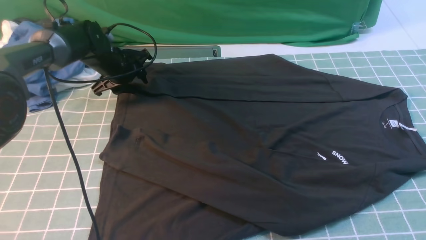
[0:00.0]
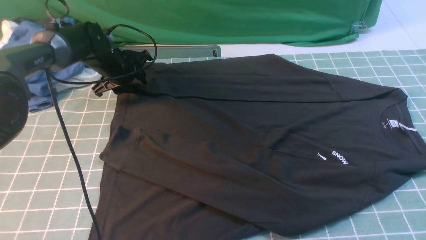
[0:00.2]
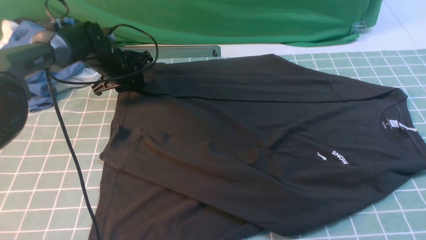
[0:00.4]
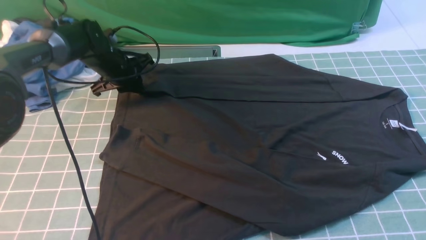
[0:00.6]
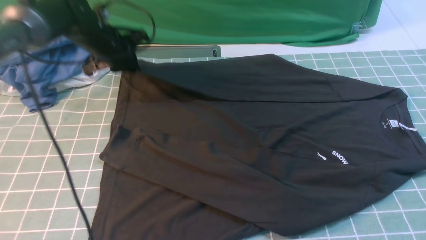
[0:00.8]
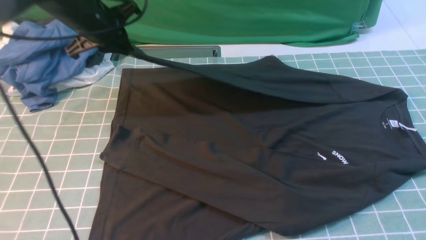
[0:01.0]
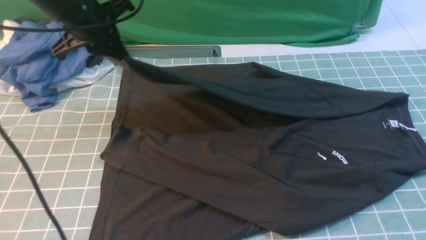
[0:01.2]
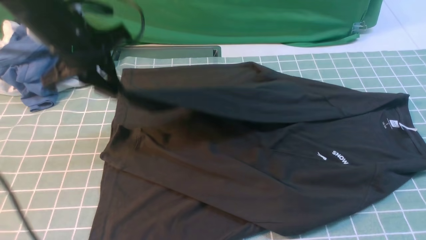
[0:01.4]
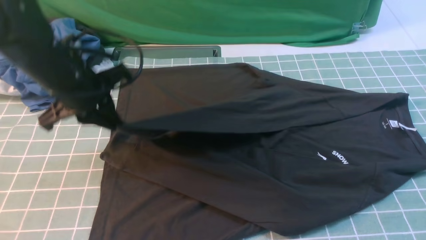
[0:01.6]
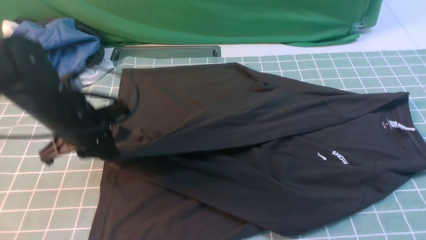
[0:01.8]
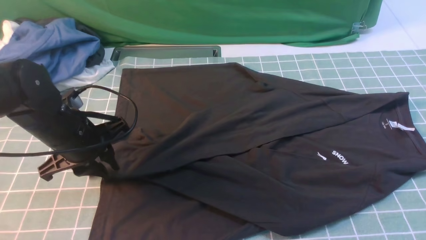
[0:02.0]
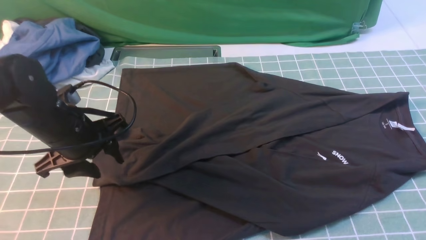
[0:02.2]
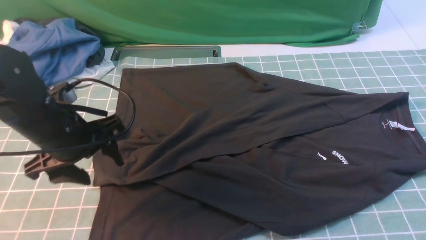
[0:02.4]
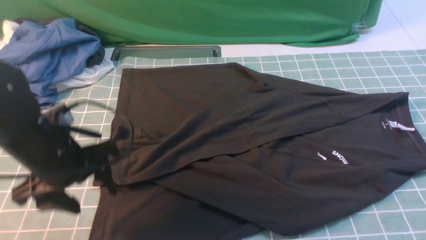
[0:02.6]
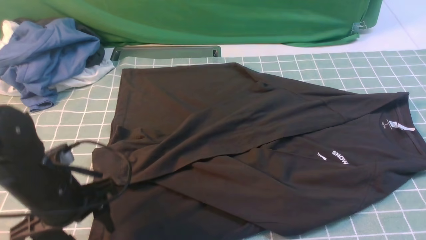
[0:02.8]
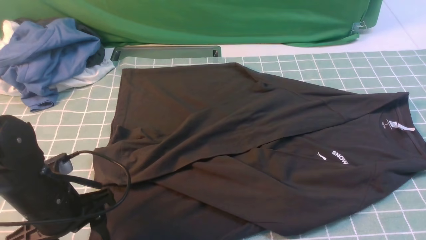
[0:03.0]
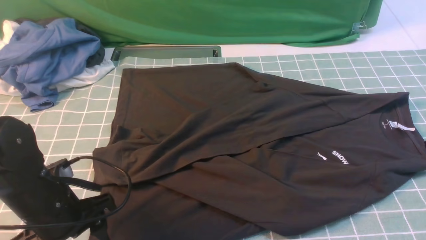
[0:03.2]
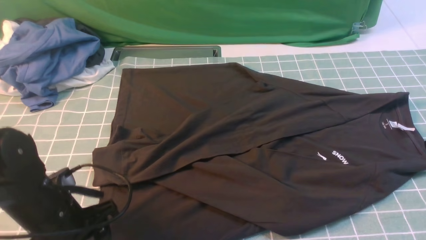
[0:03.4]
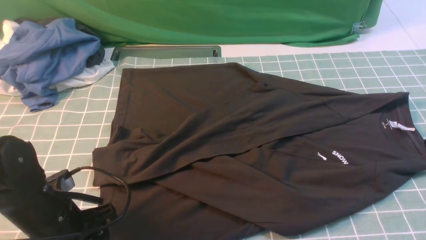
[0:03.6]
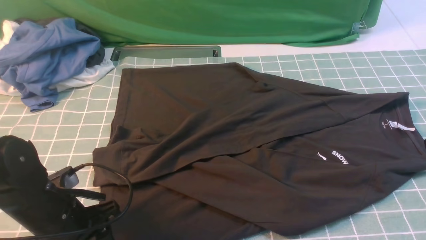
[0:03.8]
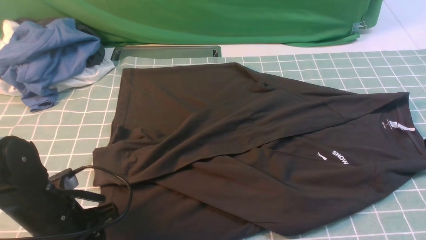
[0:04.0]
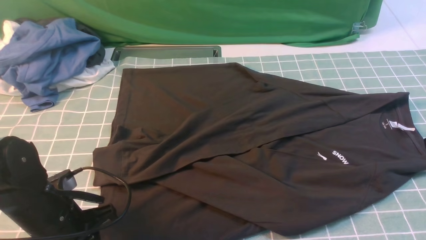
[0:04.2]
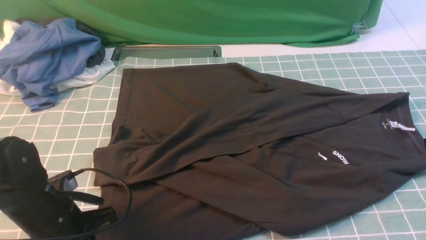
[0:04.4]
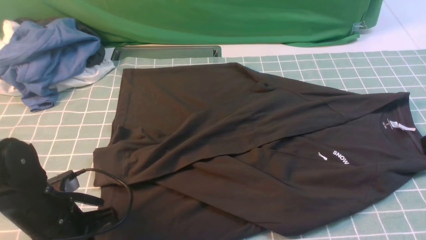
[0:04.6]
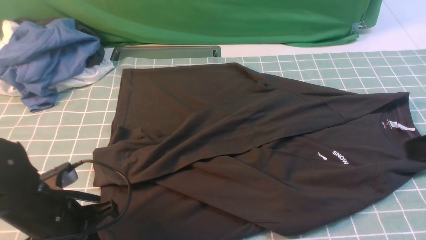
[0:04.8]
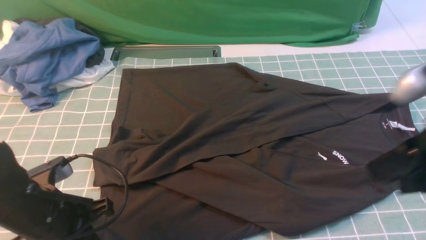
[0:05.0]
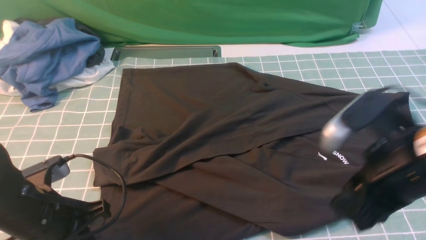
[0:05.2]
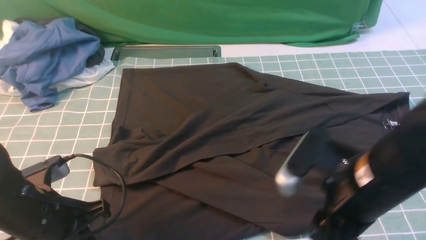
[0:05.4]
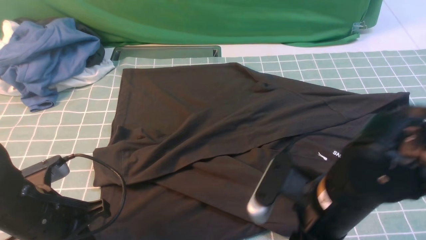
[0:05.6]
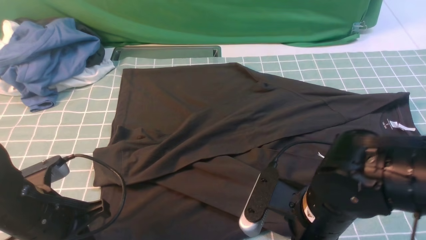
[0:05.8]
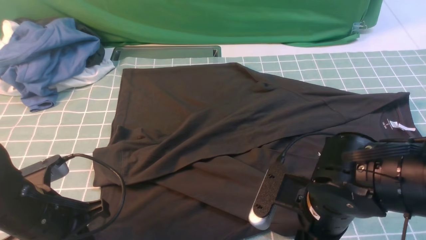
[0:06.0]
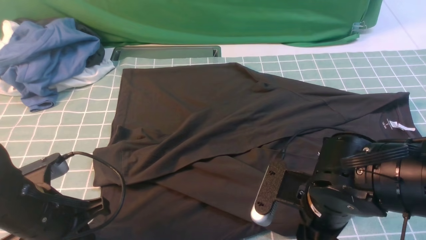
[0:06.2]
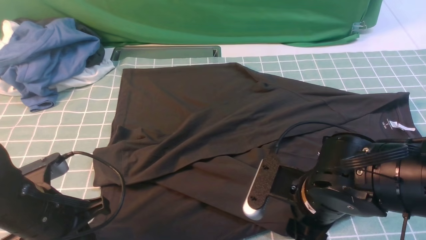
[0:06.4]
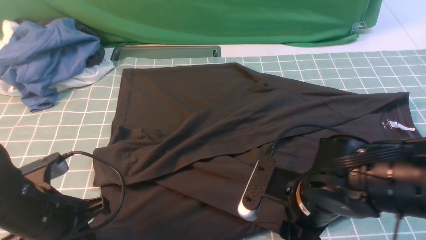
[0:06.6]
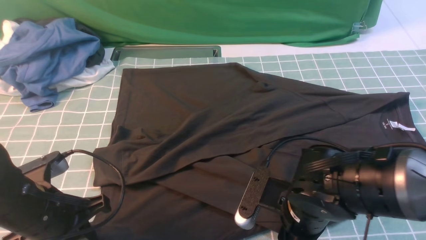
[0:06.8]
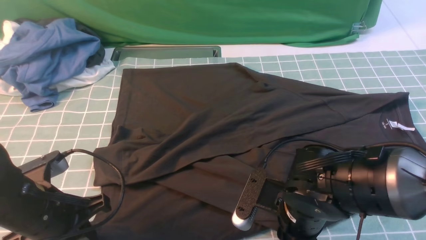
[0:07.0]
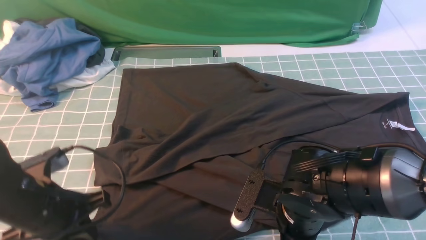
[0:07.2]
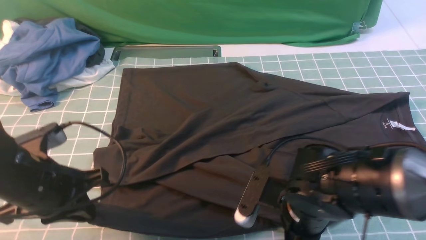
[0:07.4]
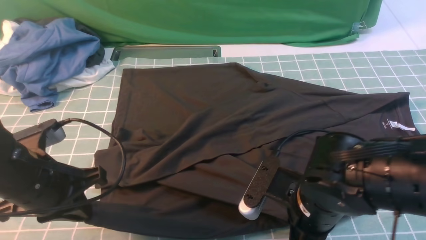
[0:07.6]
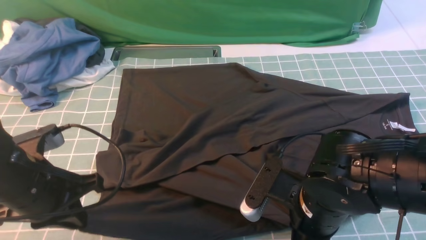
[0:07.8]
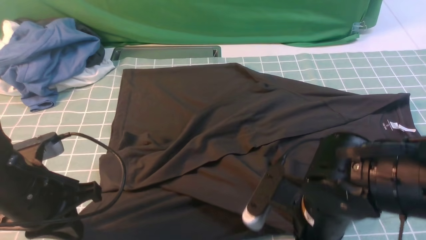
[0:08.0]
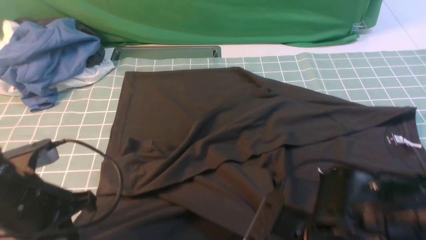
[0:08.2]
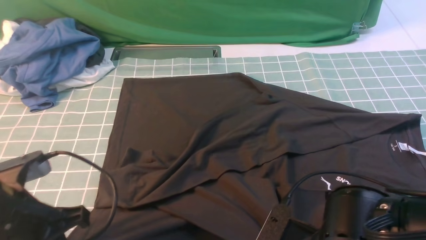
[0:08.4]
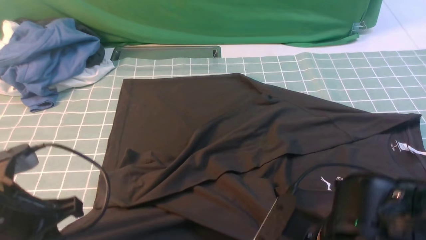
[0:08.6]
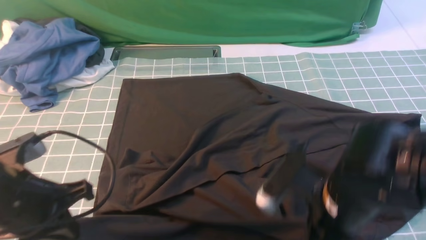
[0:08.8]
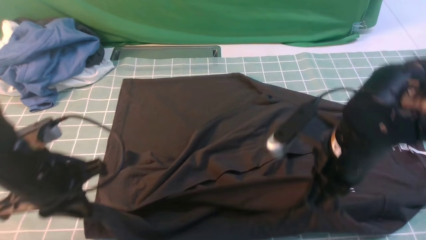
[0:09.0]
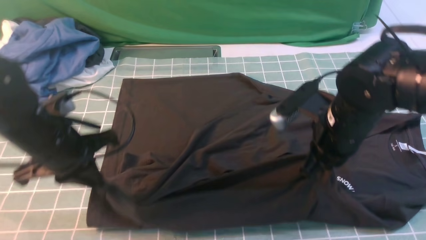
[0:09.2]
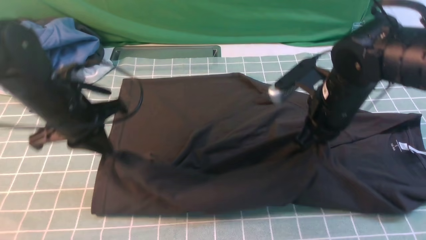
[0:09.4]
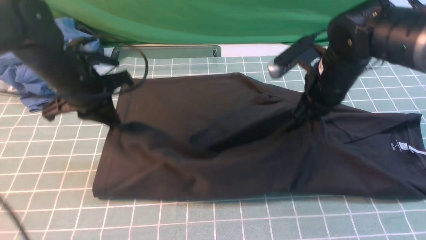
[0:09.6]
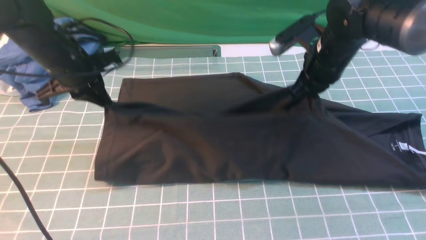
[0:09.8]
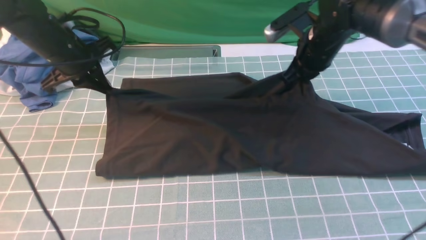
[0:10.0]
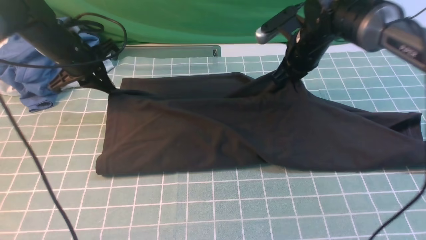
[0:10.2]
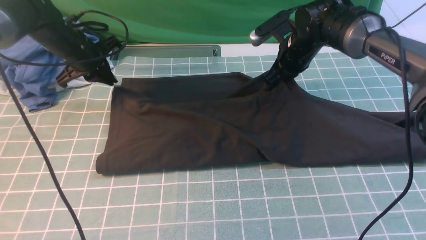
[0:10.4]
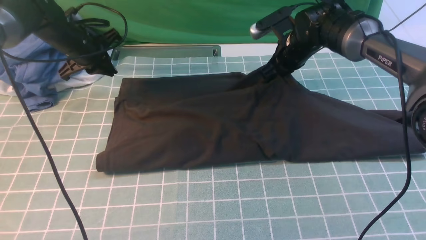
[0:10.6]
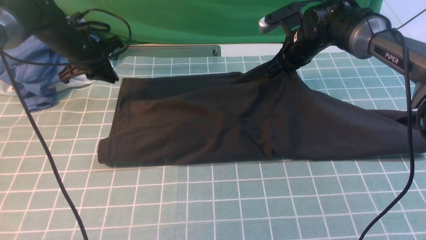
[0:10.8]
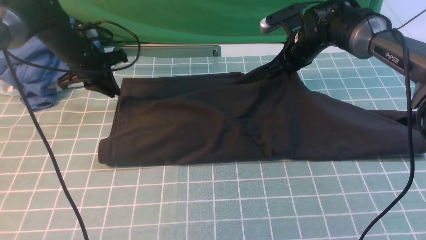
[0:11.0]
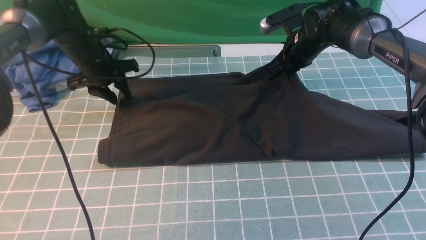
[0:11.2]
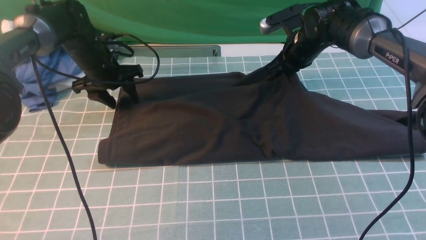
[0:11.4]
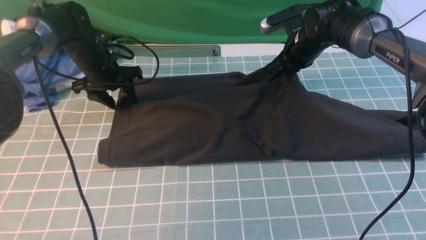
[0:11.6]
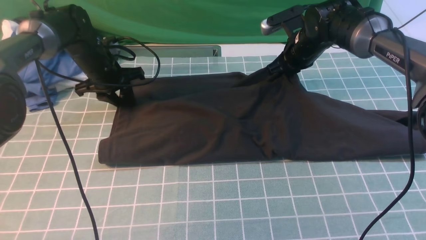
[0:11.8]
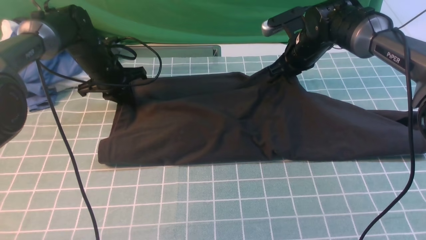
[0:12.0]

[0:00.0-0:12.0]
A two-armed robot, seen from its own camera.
Step, 0:00.8 to 0:02.2: use the left arm to drag and drop the cuff onto the cuff closest to the left arm.
Step, 0:02.4 to 0:07.6: use both arms simultaneously to clamp the lower edge of the clothing fabric.
0:00.0 to 0:01.6: The left gripper shifts some 20 cm backward and upward, and closes.
0:01.6 to 0:03.0: The left gripper goes roughly 15 cm backward and downward, and opens up.
0:03.0 to 0:04.4: The left gripper closes.
0:04.4 to 0:06.0: The right gripper goes some 25 cm to the left and downward, and opens its fingers.
0:06.0 to 0:07.6: The right gripper closes its fingers.
0:07.6 to 0:09.0: The right gripper changes place by approximately 10 cm.
0:09.0 to 0:10.4: Both grippers move forward, roughly 25 cm.
0:10.4 to 0:12.0: The left gripper shifts by some 5 cm, and opens, then closes again.

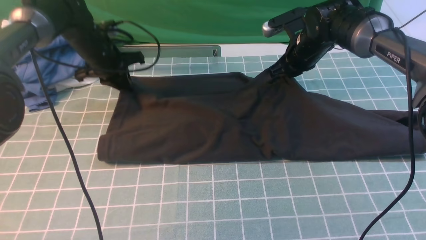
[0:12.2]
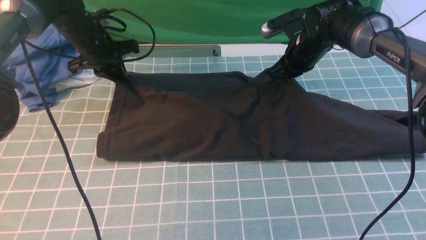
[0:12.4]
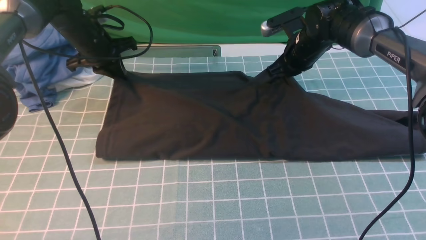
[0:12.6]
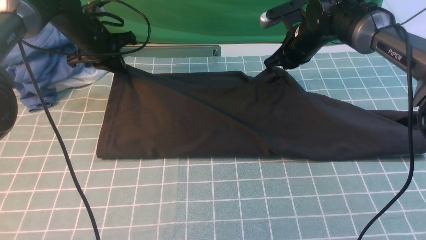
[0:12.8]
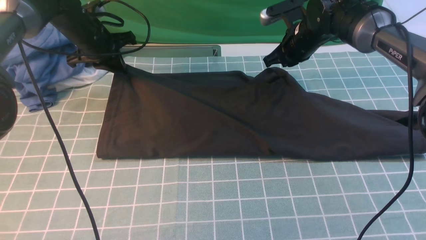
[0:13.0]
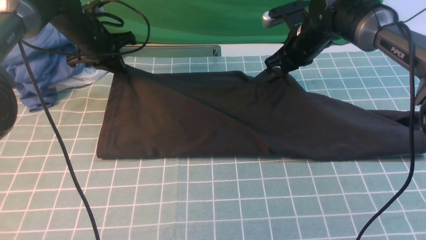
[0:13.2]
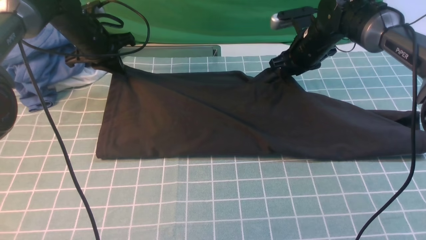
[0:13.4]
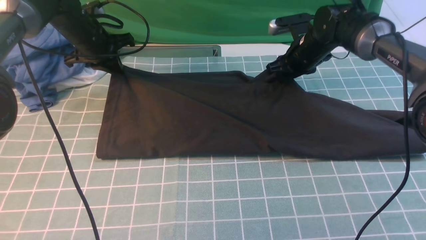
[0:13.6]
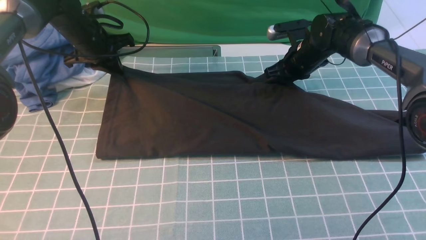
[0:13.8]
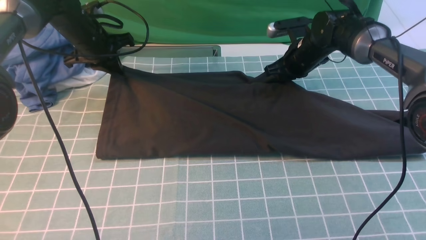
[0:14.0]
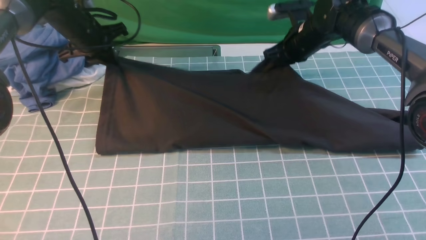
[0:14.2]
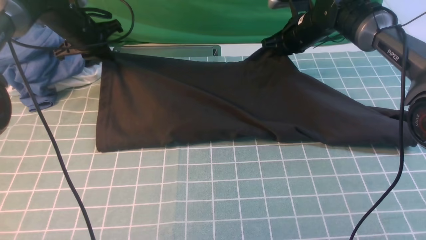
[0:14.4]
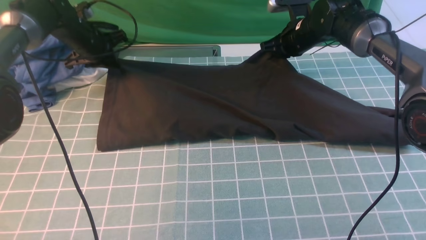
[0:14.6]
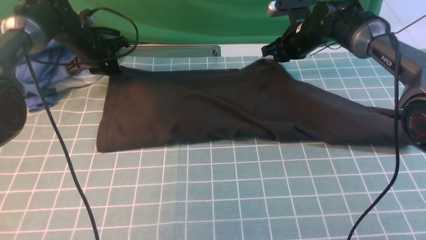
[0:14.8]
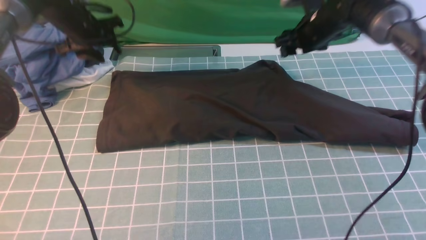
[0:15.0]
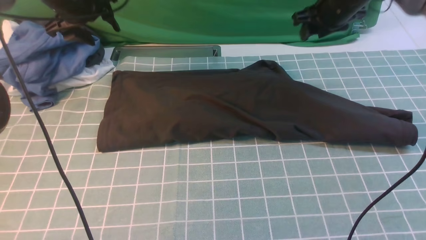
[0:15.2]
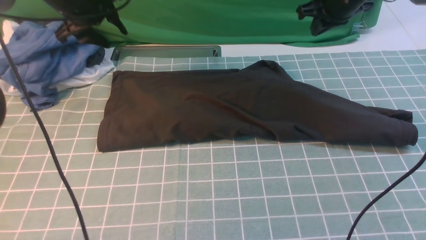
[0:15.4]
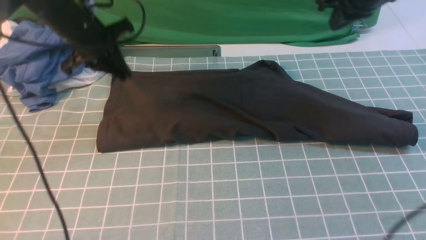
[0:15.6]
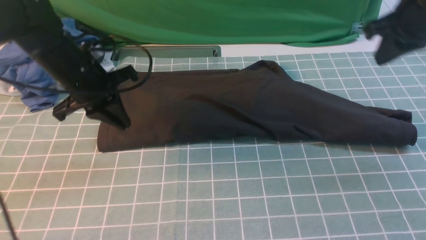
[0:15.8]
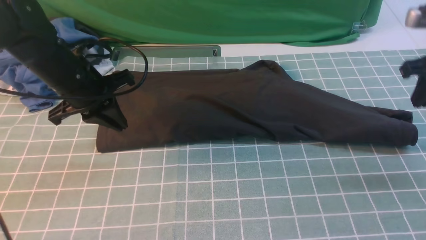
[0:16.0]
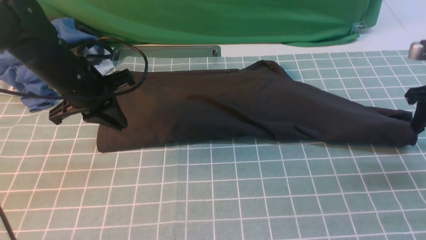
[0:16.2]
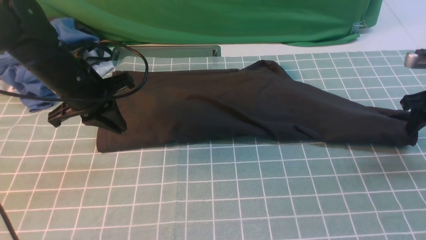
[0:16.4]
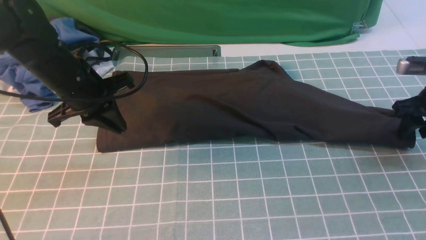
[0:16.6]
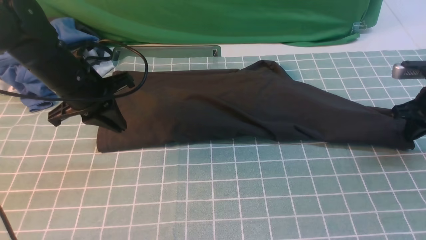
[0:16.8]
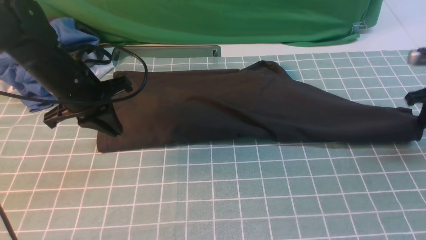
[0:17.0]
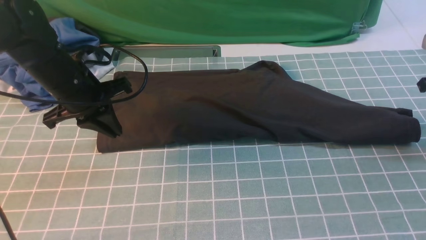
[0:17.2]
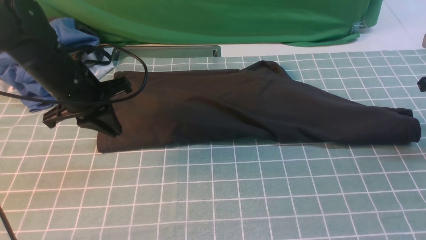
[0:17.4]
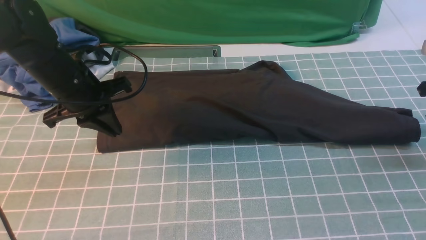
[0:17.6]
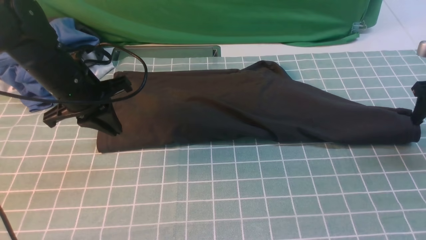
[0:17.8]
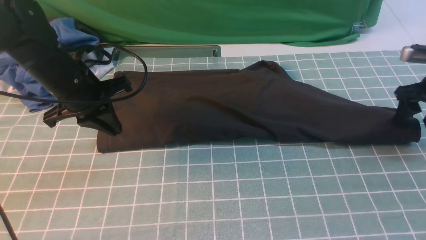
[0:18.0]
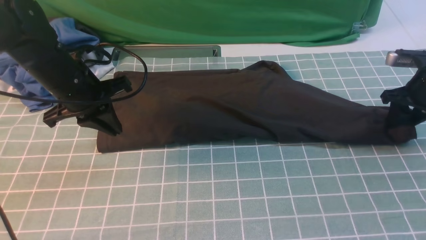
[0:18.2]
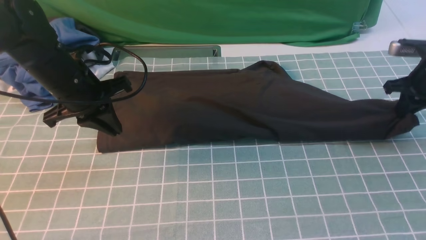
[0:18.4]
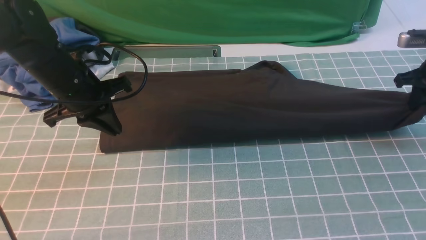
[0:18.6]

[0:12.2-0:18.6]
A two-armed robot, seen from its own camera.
Step, 0:12.2 to 0:15.2: use both arms to drag the lower edge of the fabric forward and fold it over the upper edge.
0:12.2 to 0:13.8: The grippers move only a little.
0:13.8 to 0:15.4: The left gripper travels upward by about 5 cm, and opens up; the right gripper is displaced upward by about 15 cm, and opens and closes again.
0:15.4 to 0:17.0: The left gripper heads backward, covering some 15 cm, and closes up, while the right gripper travels to the right, downward and backward by roughly 25 cm, and opens, then closes once more.
0:17.0 to 0:18.6: The right gripper opens and closes again.
